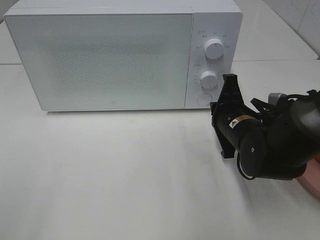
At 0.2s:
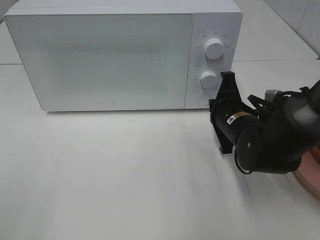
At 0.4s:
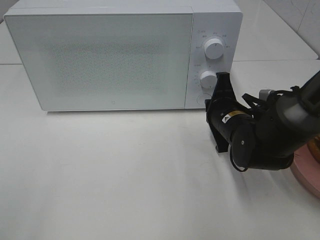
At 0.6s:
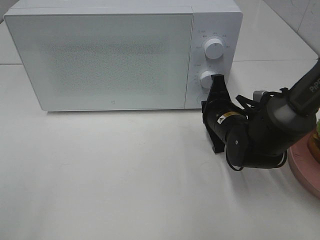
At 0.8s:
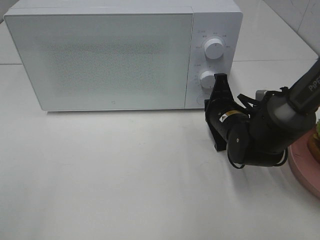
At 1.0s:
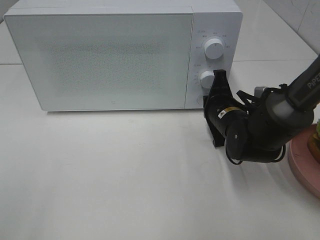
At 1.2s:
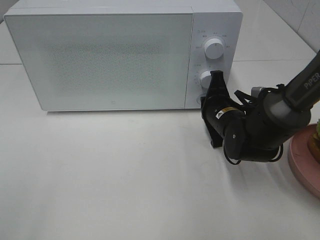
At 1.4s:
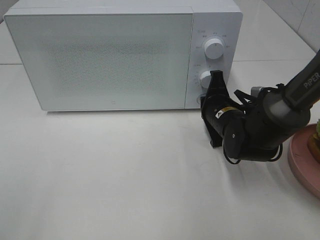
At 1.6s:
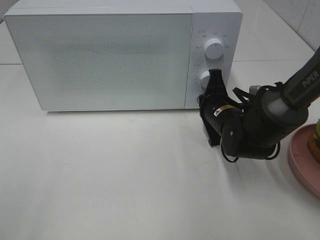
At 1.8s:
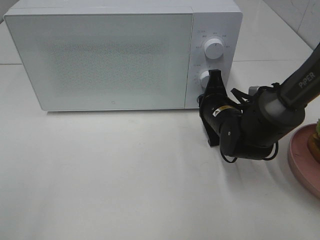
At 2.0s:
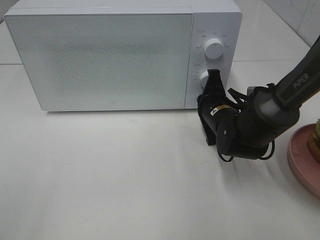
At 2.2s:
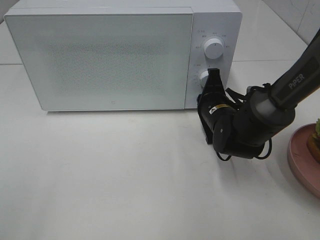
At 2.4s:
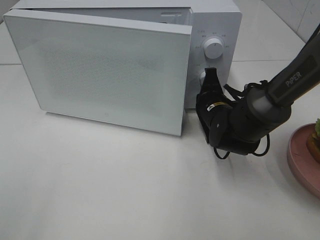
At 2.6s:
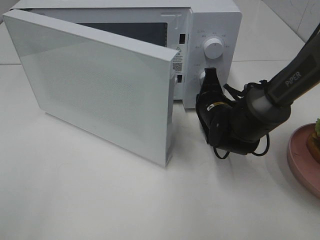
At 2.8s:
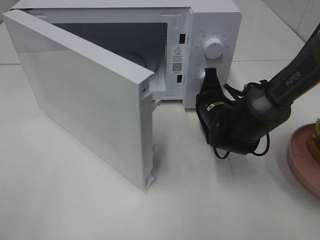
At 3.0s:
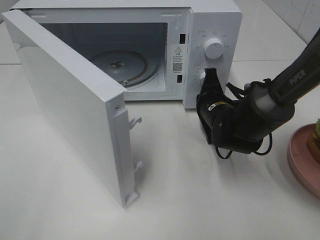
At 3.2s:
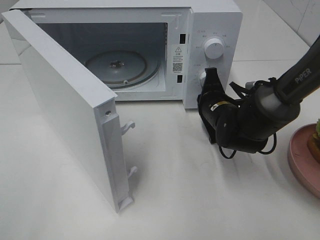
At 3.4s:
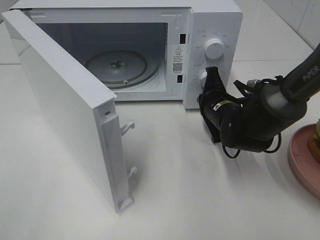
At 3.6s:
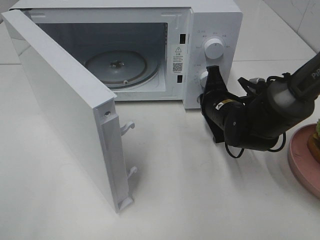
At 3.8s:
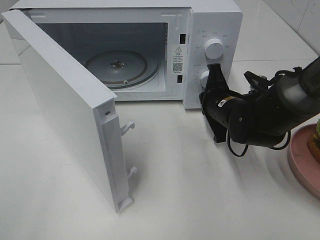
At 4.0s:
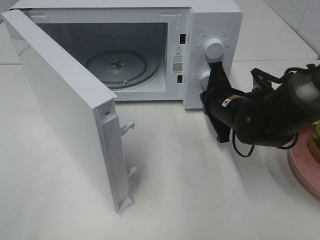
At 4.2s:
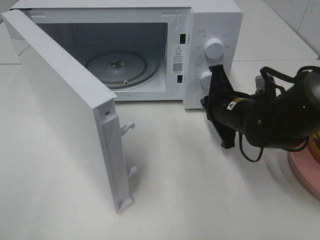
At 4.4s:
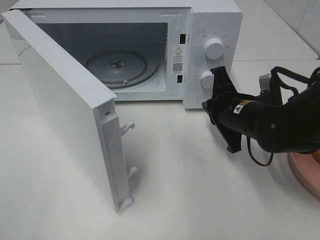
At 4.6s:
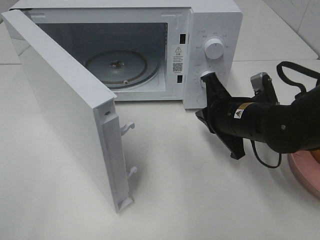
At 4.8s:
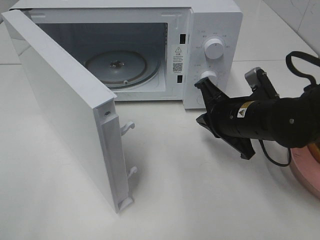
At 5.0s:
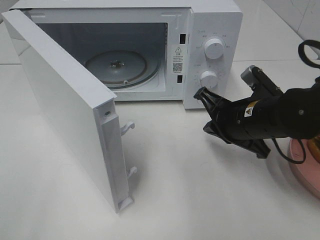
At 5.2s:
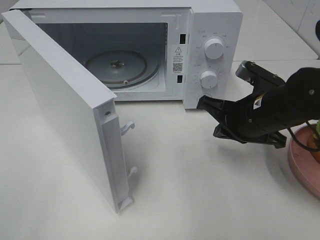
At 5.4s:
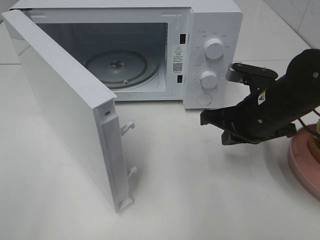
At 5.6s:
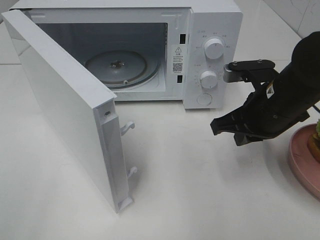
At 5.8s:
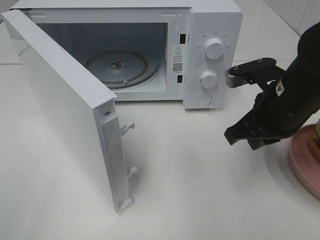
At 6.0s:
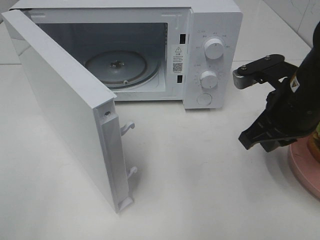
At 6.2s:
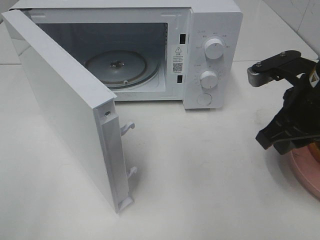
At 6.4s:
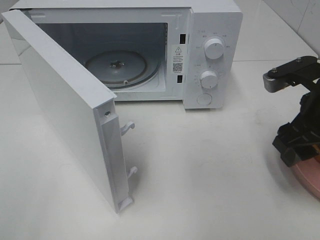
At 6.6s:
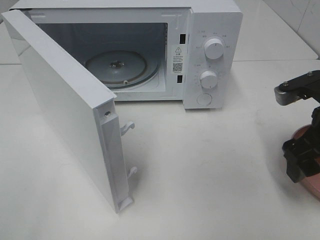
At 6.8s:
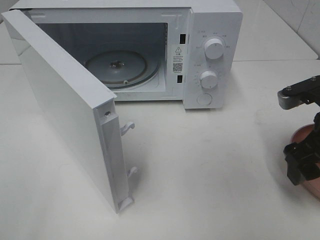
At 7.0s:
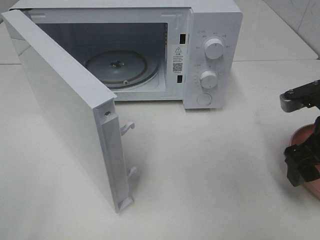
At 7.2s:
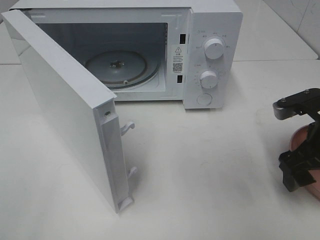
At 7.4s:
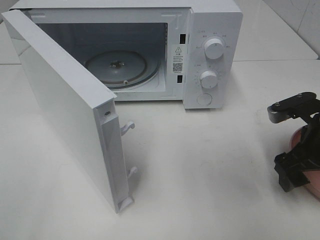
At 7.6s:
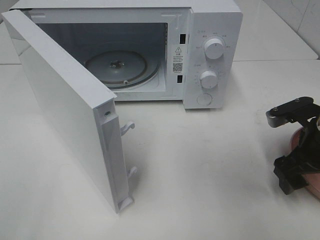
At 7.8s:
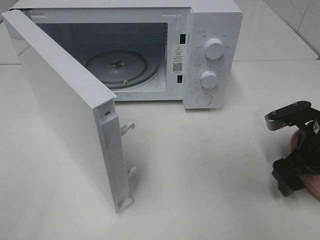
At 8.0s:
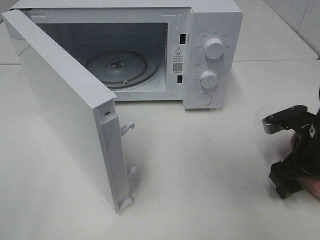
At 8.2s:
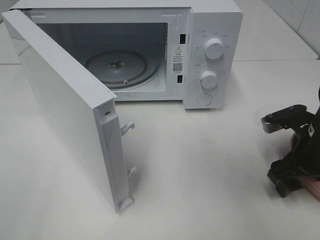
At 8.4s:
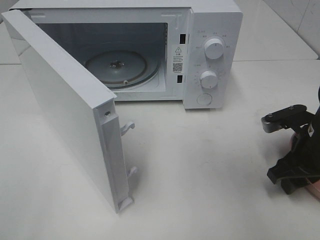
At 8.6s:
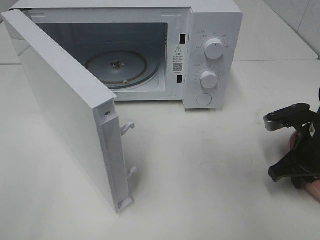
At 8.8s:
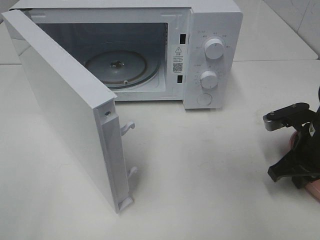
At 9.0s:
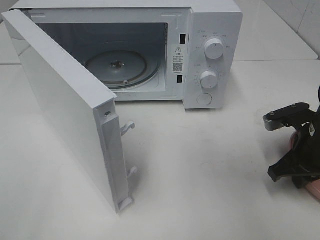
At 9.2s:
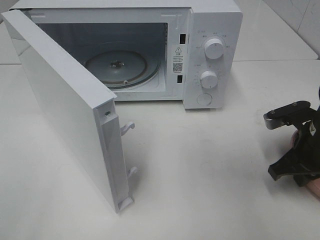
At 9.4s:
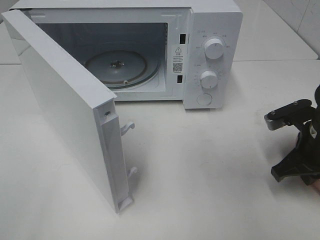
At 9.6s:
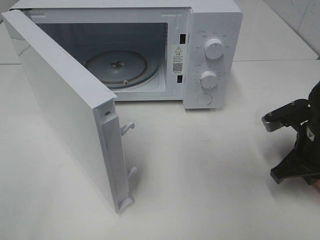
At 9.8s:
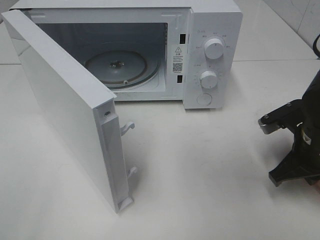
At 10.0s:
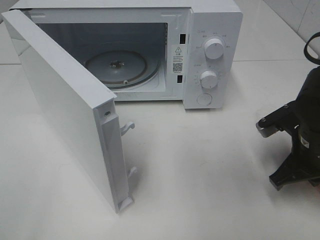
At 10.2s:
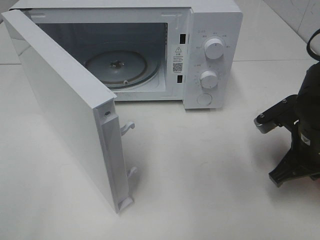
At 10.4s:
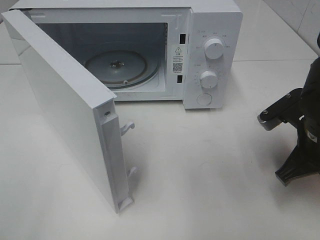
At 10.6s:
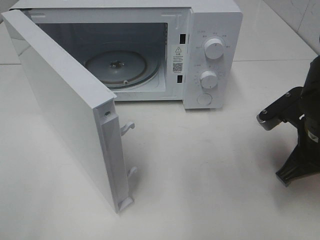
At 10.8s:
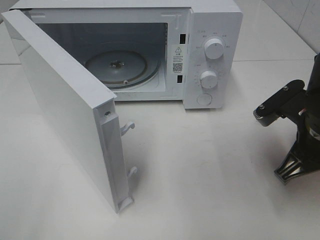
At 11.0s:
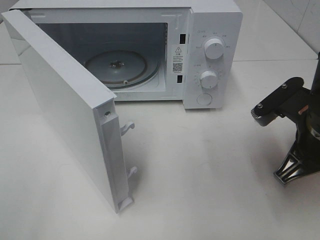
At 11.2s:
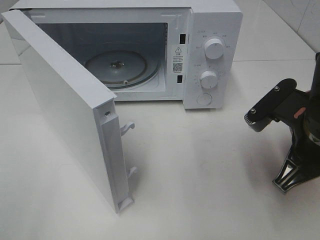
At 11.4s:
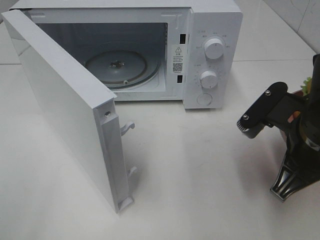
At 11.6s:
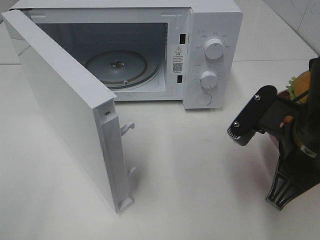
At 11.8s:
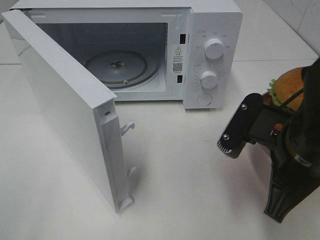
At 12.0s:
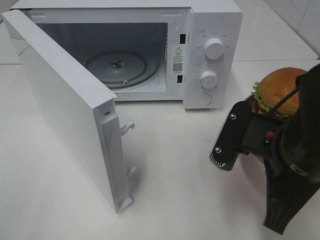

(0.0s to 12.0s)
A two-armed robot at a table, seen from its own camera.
Task of the whole recording: Heat the burger.
Step, 0.0s - 4.0s: Right hand: press the switch.
Step, 4.2s - 9.4s: Right hand: grab the plate with the hamburger.
0.0s - 1.6s: The right gripper ends up approximately 5 cm from where it was.
3.0s - 4.4s: The right gripper moves backward, roughly 5 cm.
4.4s - 6.0s: The right gripper travels upward by some 10 cm.
6.0s - 7.6s: The right gripper goes about 10 cm downward and to the right, and opens its fingers.
7.6s - 9.0s: The right gripper closes up.
9.0s - 10.4s: The right gripper moves about 5 cm.
10.4s - 12.0s: The right gripper is displaced to the left and backward by some 10 cm.

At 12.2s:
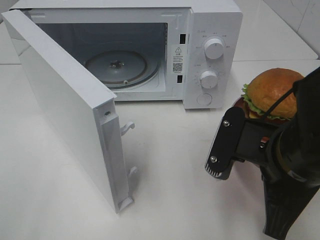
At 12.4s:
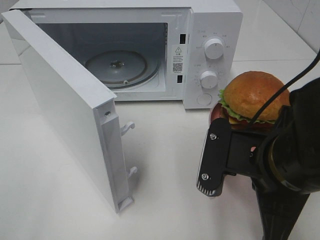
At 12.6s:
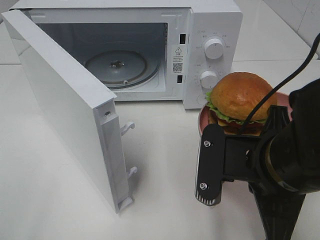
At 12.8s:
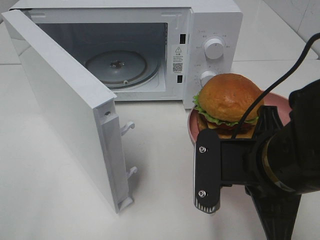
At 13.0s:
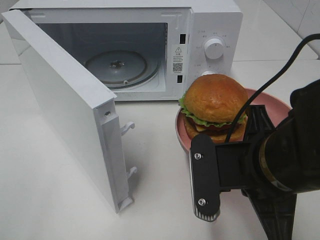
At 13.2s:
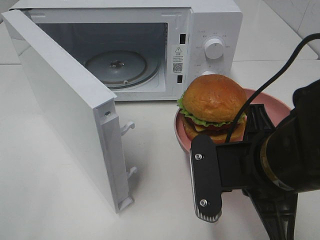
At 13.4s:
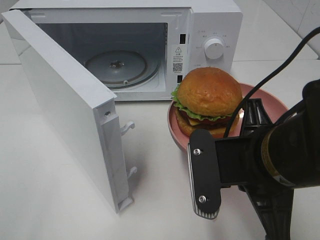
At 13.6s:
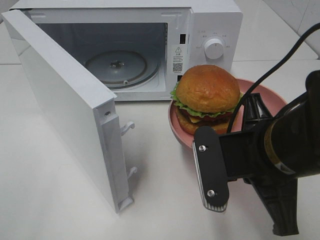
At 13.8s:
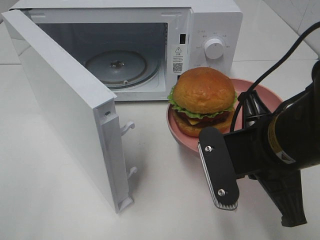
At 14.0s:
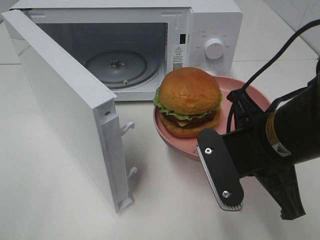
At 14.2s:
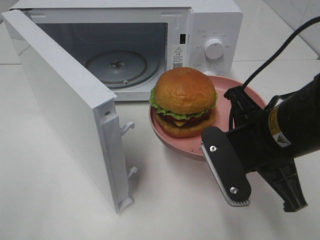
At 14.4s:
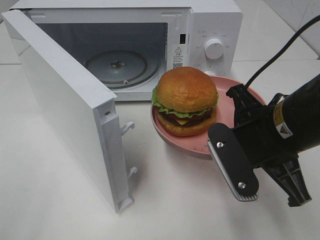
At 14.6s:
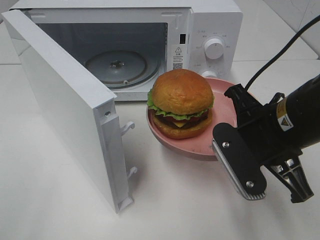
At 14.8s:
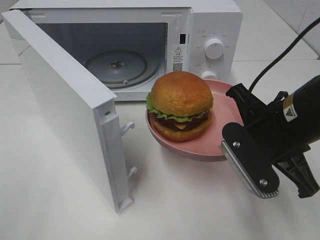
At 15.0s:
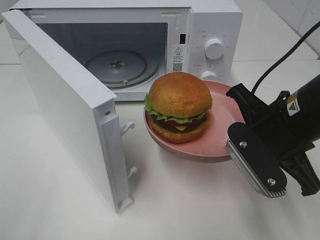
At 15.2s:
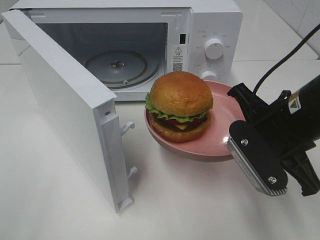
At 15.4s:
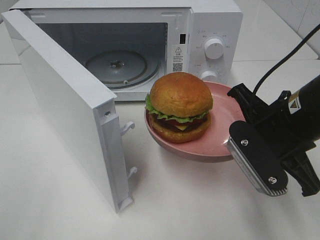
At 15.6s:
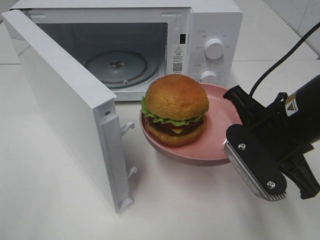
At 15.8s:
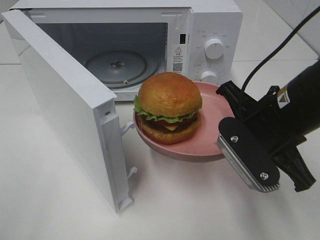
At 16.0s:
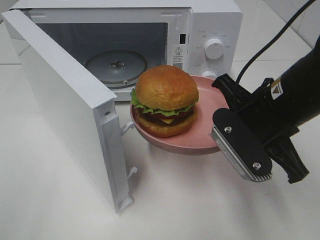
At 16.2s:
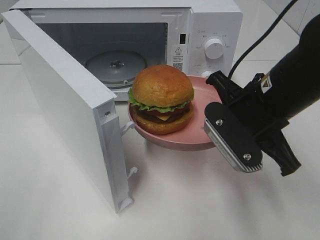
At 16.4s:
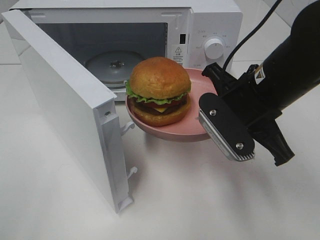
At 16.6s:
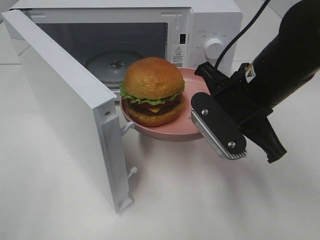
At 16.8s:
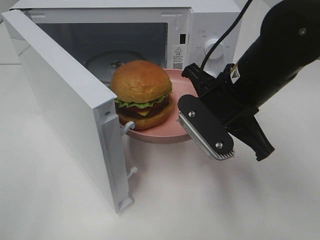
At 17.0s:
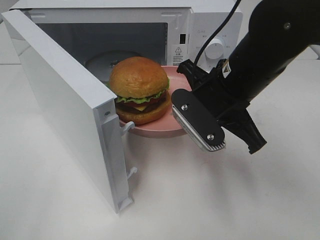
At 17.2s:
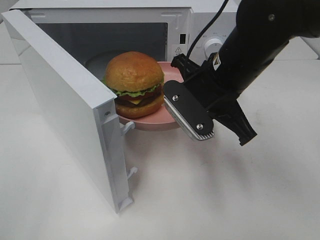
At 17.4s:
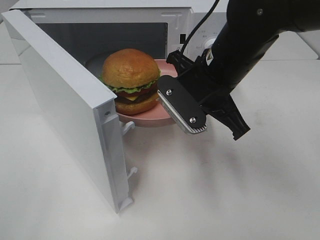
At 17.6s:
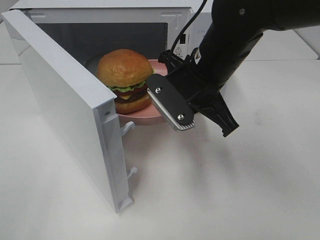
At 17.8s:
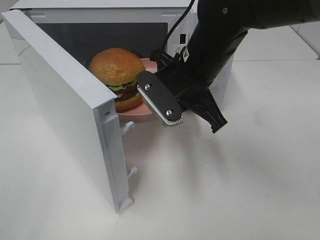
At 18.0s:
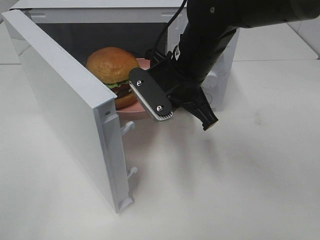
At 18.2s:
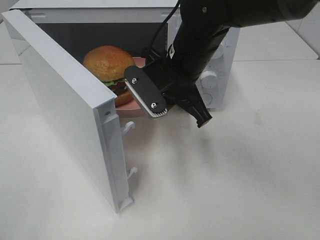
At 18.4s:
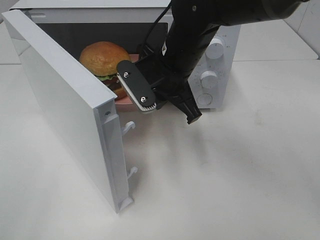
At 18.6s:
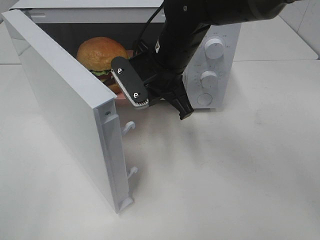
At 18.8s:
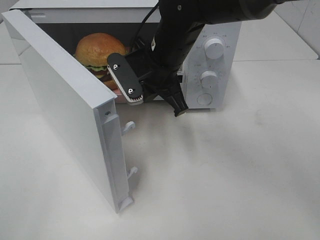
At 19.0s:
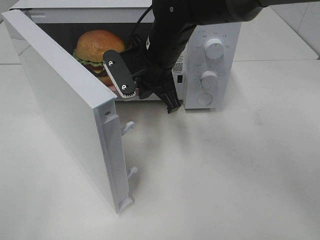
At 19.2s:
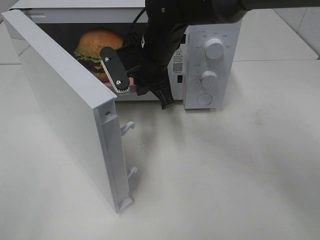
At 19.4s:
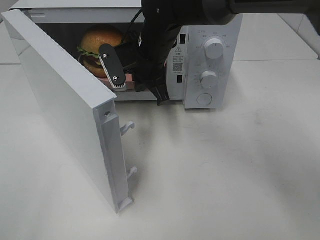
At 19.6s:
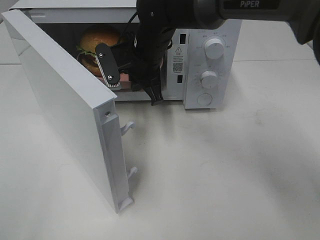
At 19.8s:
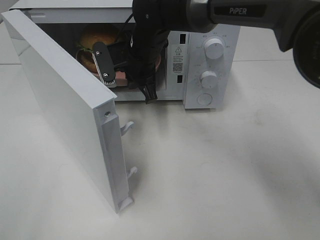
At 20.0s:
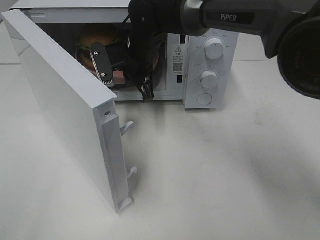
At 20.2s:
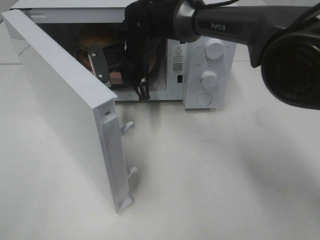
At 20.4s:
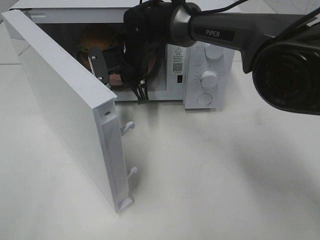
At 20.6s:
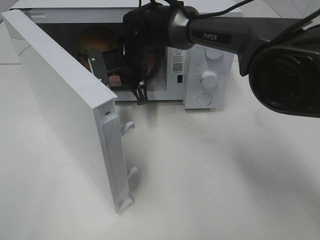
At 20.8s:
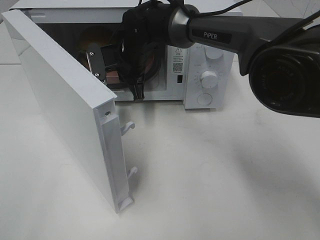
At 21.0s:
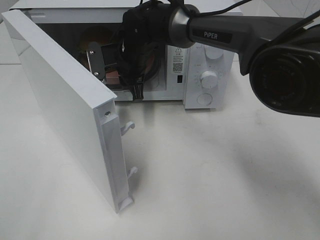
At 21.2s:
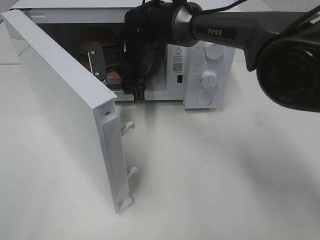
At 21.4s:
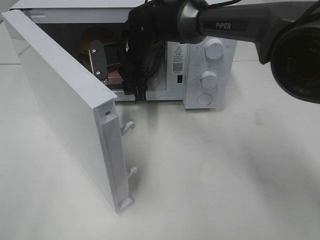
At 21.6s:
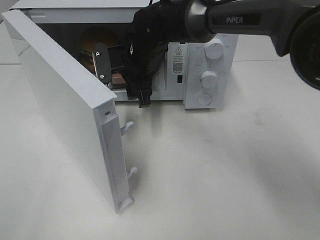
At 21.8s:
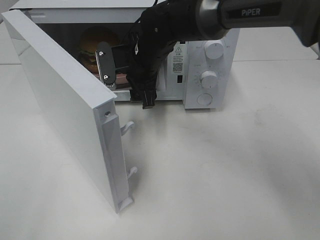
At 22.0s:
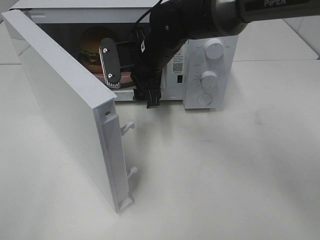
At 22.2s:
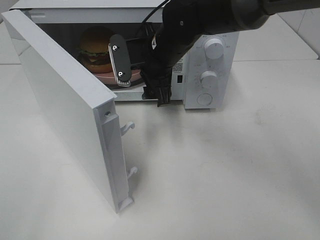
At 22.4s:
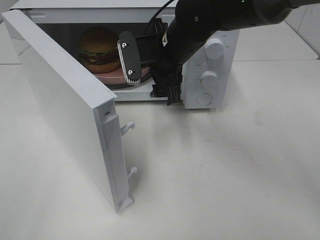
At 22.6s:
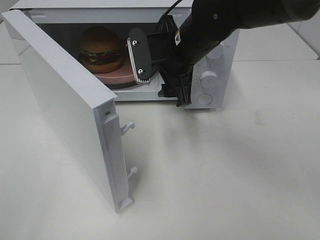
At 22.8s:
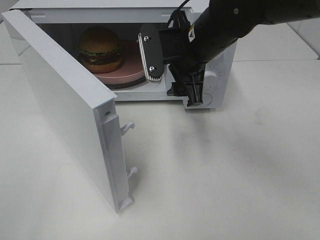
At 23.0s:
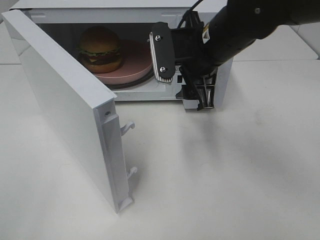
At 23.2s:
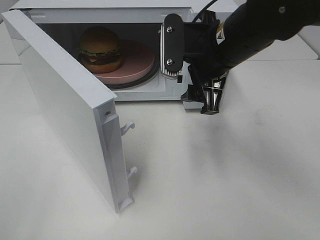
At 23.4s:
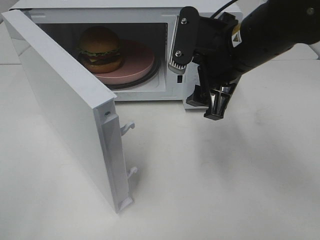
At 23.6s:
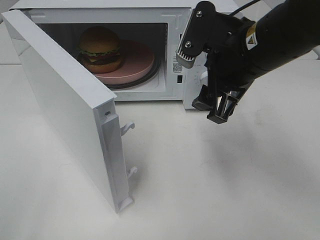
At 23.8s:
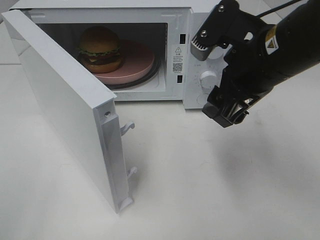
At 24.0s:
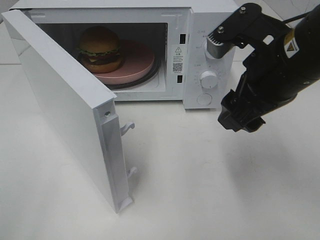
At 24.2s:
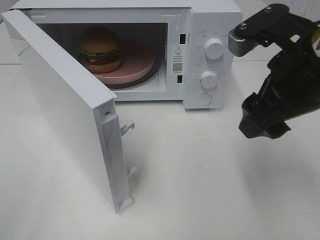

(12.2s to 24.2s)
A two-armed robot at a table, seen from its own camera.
Task of the whole recording: Heat the burger.
Step, 12.2s - 21.8s: Right hand: place the plate in the microwave.
13.8s - 15.2s: The right gripper changes place by some 5 cm.
15.2s - 16.6s: The right gripper moves about 5 cm.
16.6s - 18.2s: The right gripper goes roughly 10 cm to the left and forward.
18.2s - 19.8s: The right gripper moves forward and to the left, approximately 10 cm.
19.8s - 21.2s: The right gripper opens.
21.2s - 22.6s: The right gripper moves to the right, backward and upward, about 15 cm.
22.6s - 24.2s: The right gripper is displaced backward, to the right and upward by about 20 cm.
